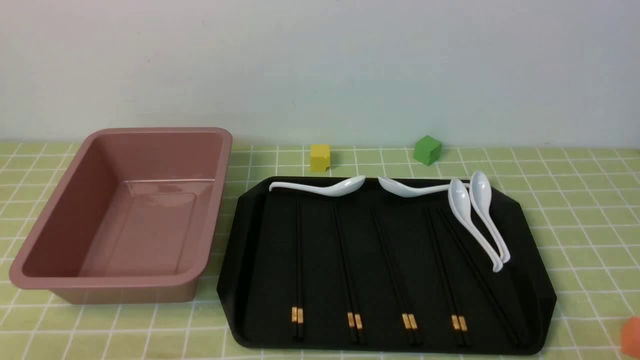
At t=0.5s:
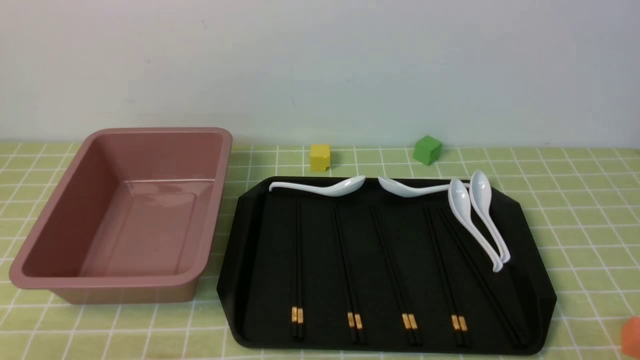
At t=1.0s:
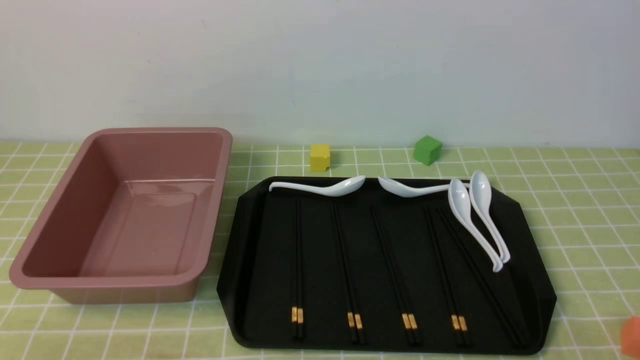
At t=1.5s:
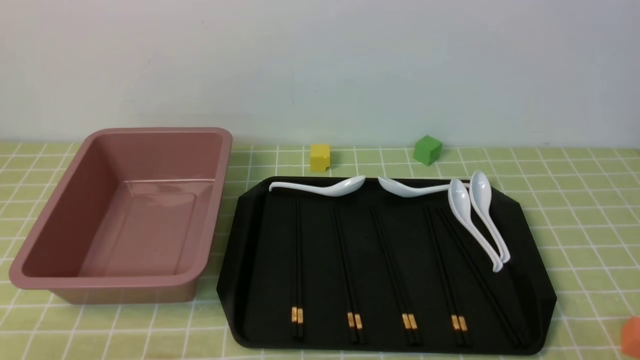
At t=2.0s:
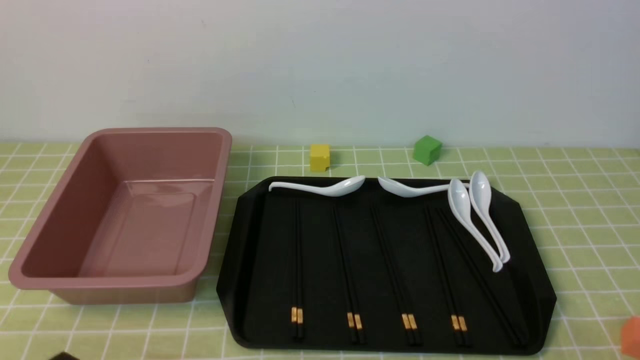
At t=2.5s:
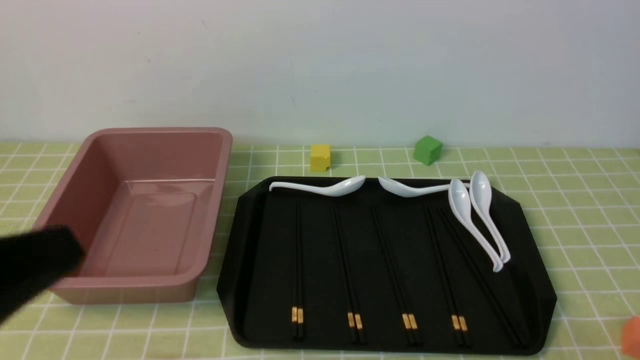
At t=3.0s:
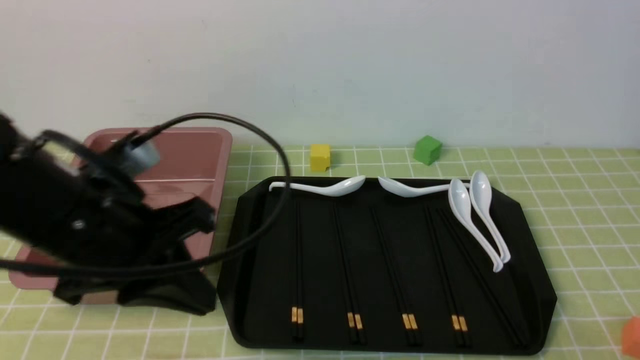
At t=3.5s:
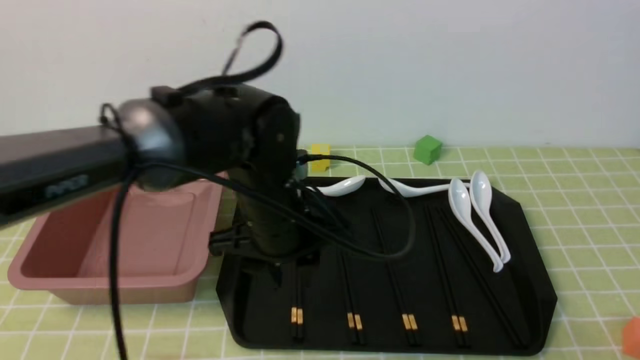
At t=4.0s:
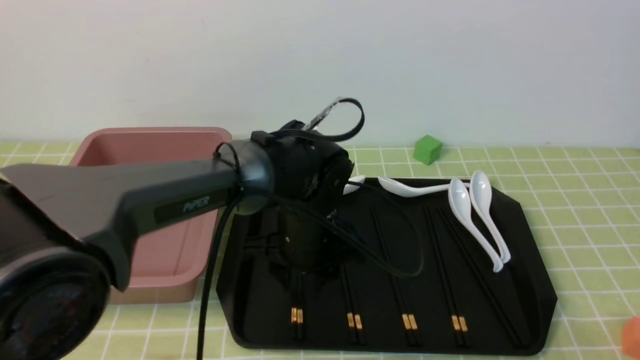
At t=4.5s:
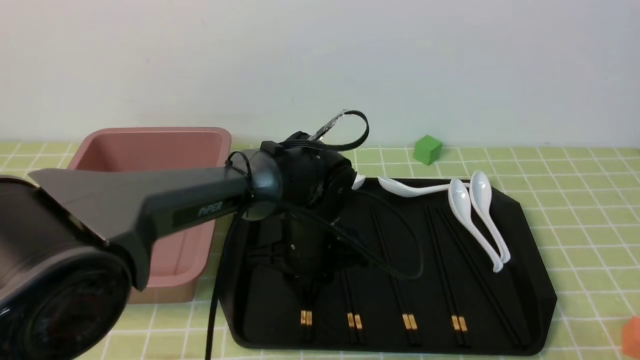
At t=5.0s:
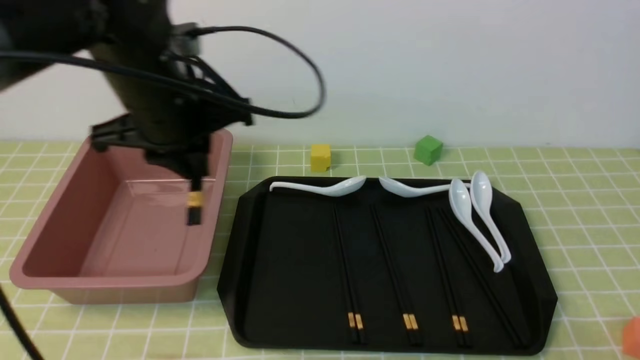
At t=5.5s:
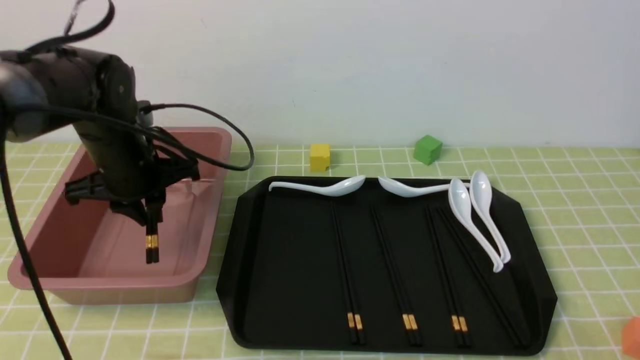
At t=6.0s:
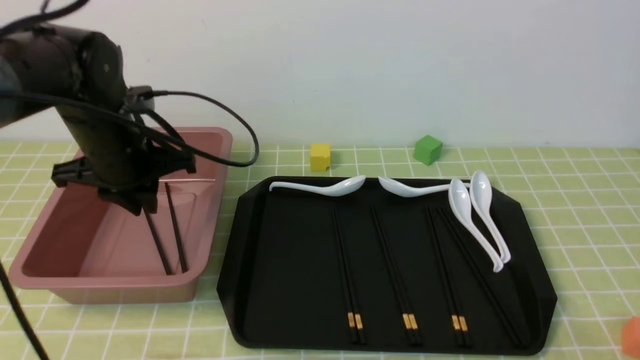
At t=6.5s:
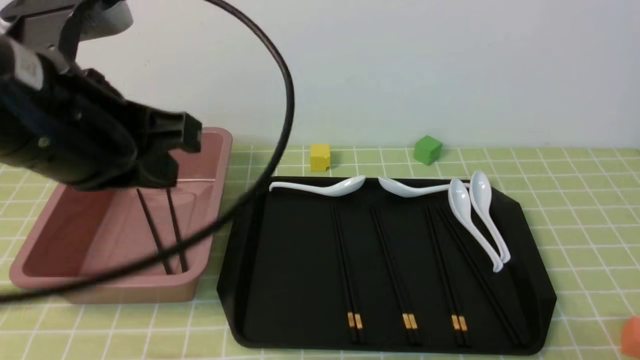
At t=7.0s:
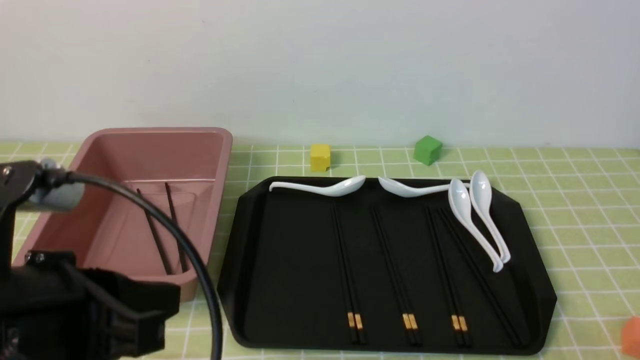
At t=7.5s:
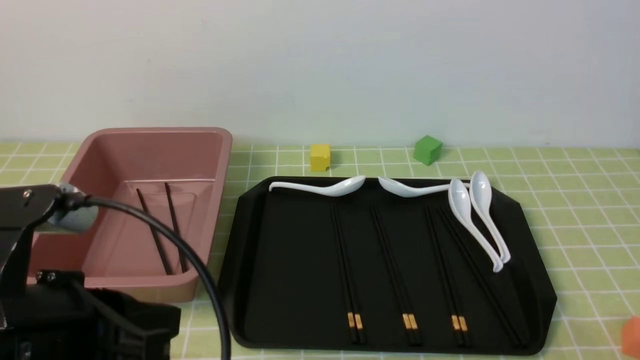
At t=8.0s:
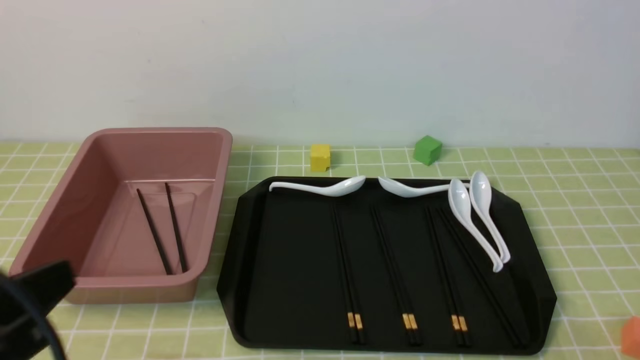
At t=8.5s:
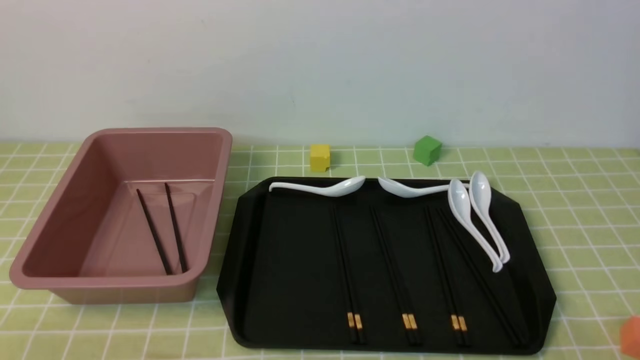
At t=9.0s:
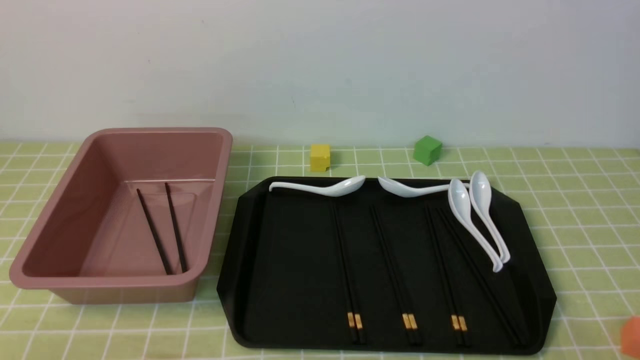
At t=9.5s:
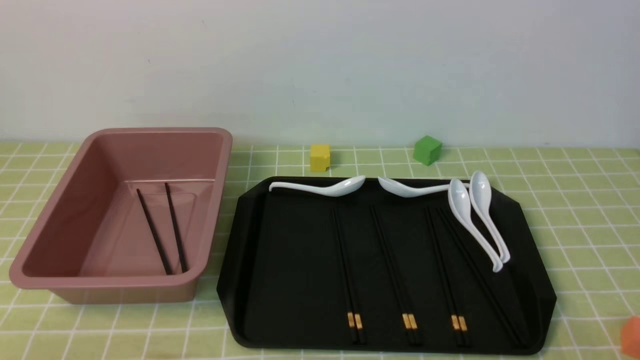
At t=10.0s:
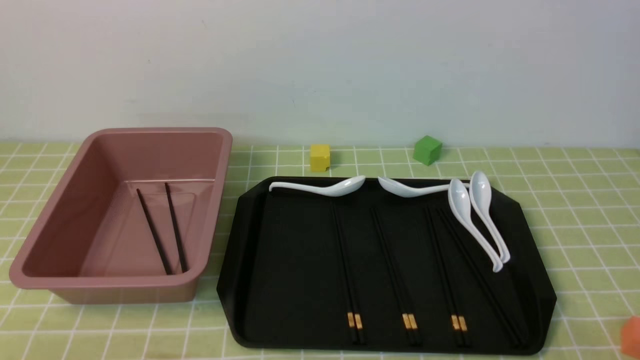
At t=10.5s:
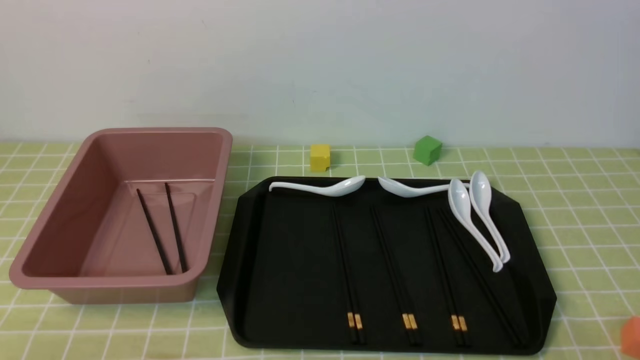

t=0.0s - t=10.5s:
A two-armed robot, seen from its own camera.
Step, t=0.0s - t=4.5s: use the left arm to grab a pair of chopsticks.
Step, t=5.0s - t=6.0s: use the left arm to put the chopsticks into the lunch box.
t=2.0s - t=4.0s: The left gripper heads forward and to the right, covering roughly 40 cm, and closes, then opens again.
t=4.0s - t=6.5s: The left gripper moves up and down over approximately 20 cm, changing direction 2 times, and closes.
t=6.5s - t=8.5s: The left gripper goes roughly 25 cm downward, backward and to the left.
